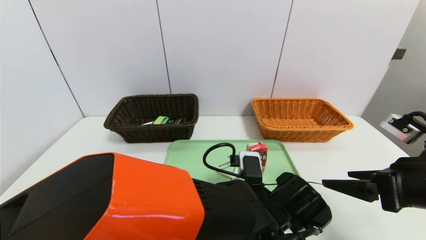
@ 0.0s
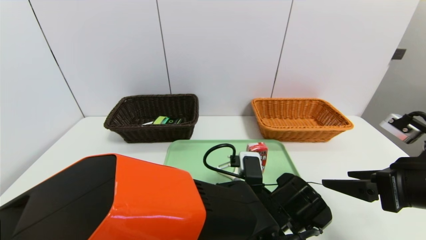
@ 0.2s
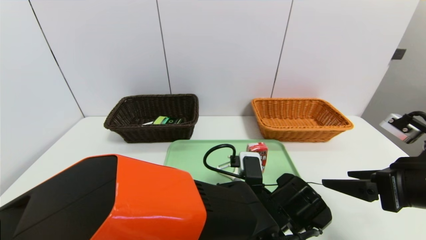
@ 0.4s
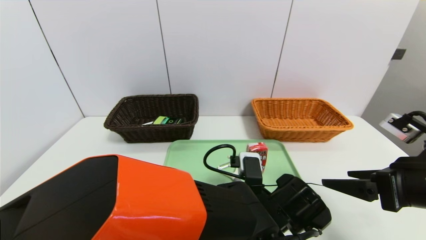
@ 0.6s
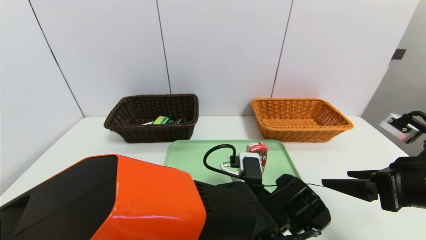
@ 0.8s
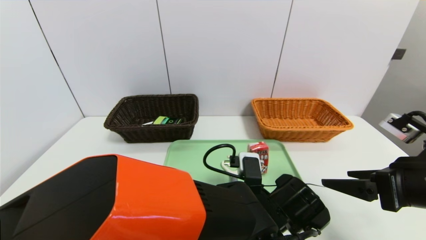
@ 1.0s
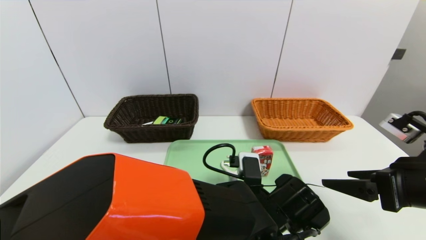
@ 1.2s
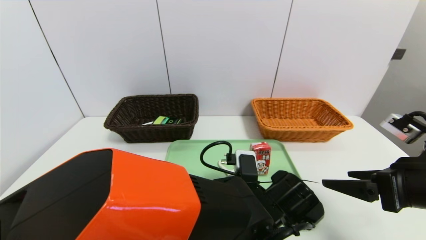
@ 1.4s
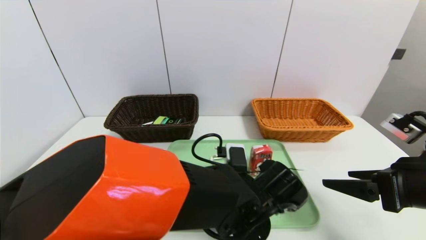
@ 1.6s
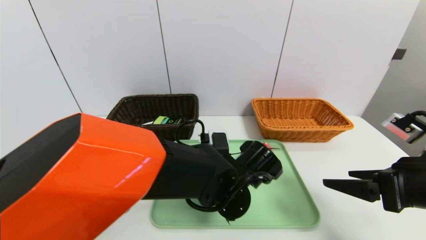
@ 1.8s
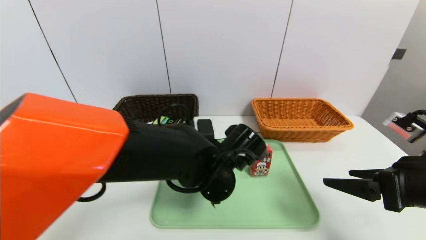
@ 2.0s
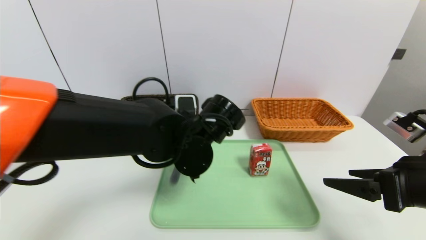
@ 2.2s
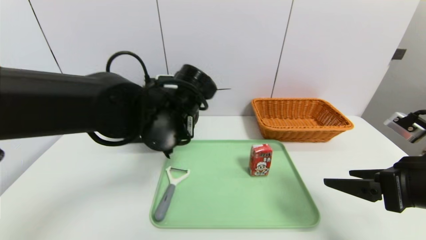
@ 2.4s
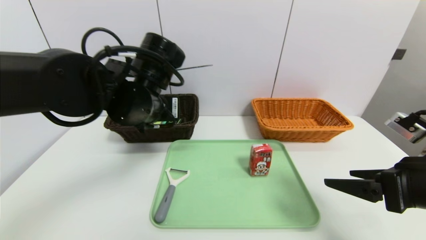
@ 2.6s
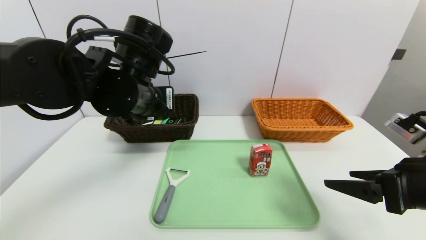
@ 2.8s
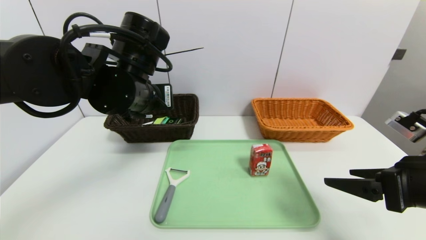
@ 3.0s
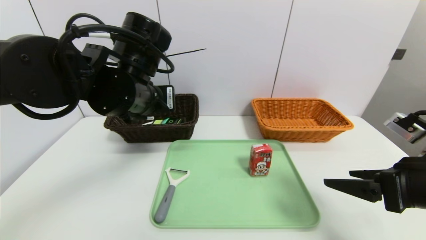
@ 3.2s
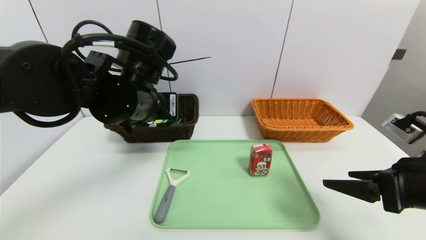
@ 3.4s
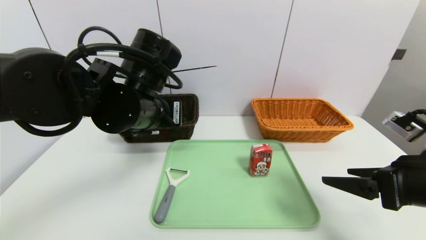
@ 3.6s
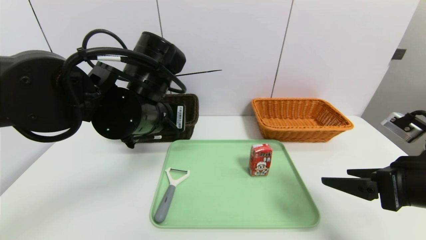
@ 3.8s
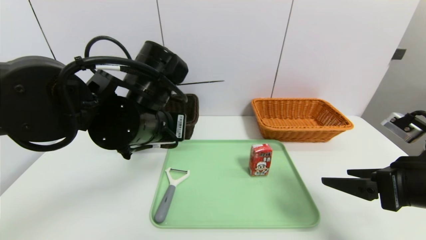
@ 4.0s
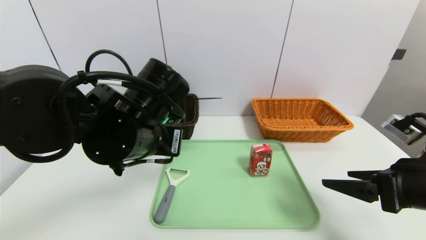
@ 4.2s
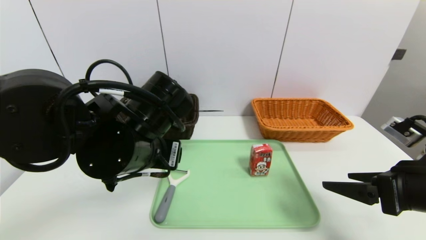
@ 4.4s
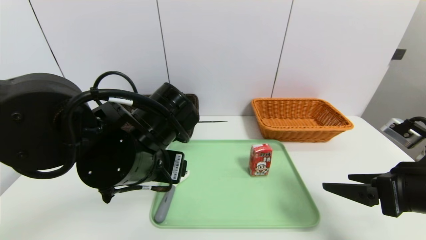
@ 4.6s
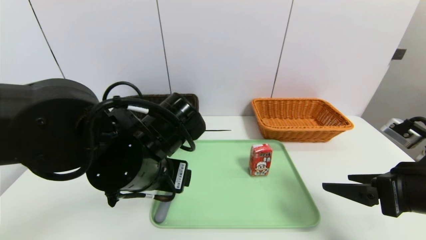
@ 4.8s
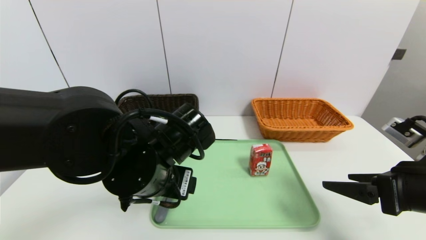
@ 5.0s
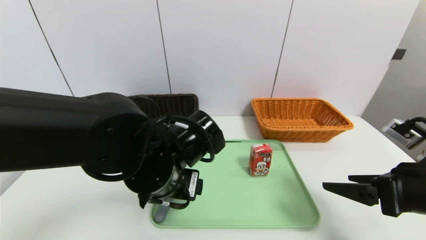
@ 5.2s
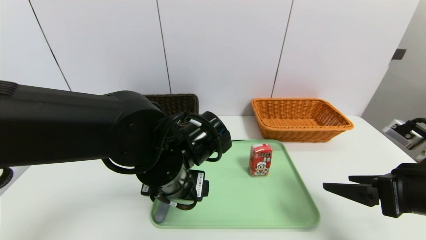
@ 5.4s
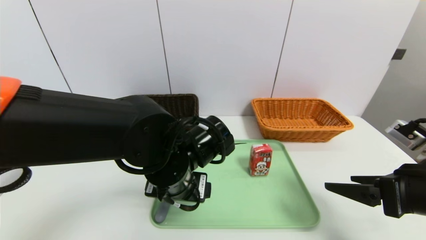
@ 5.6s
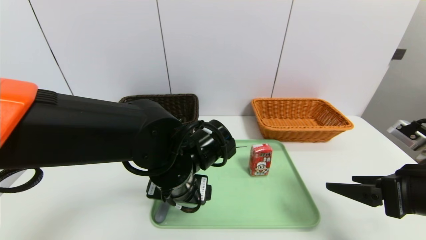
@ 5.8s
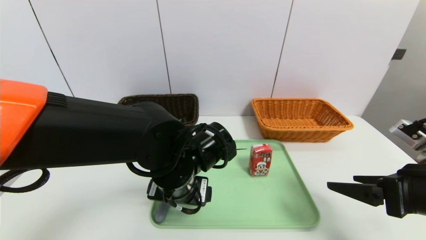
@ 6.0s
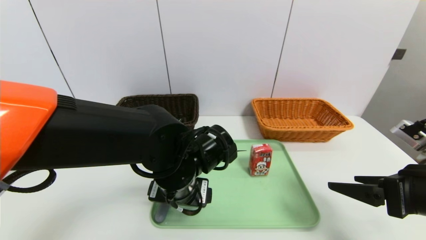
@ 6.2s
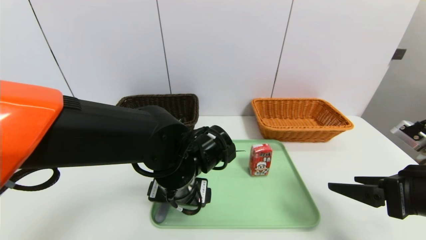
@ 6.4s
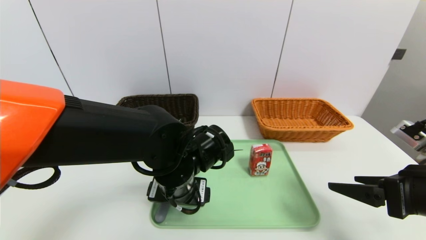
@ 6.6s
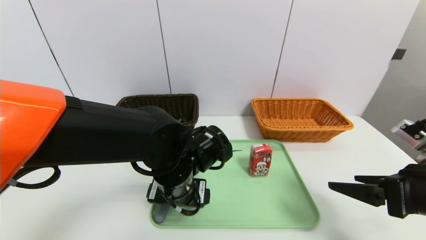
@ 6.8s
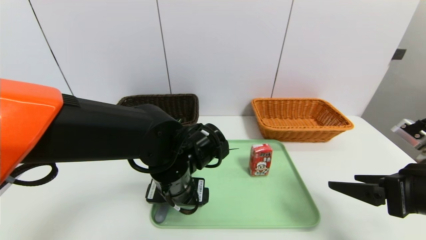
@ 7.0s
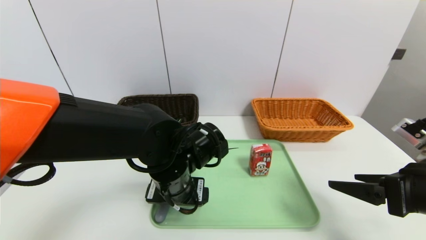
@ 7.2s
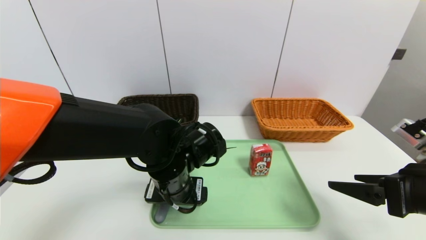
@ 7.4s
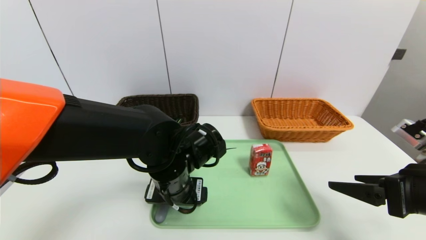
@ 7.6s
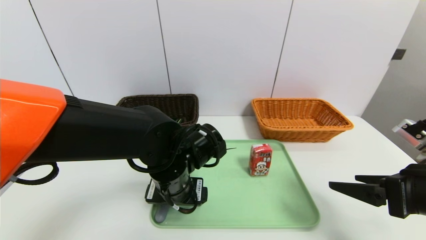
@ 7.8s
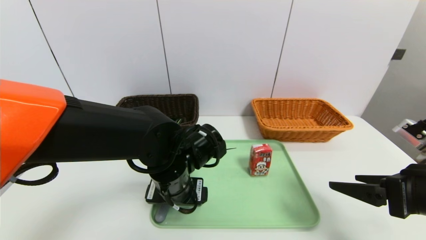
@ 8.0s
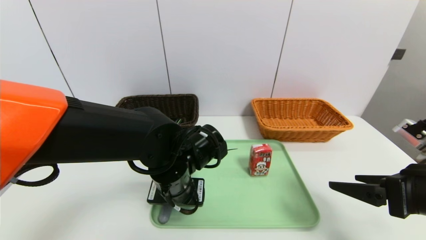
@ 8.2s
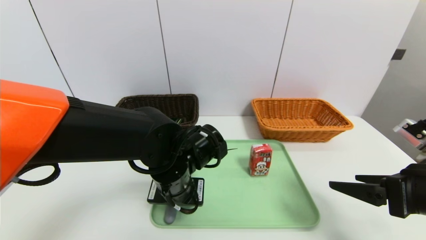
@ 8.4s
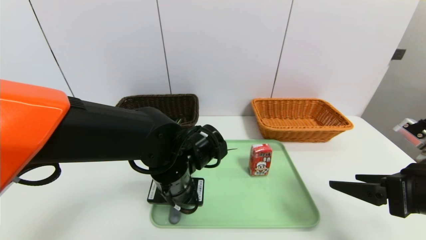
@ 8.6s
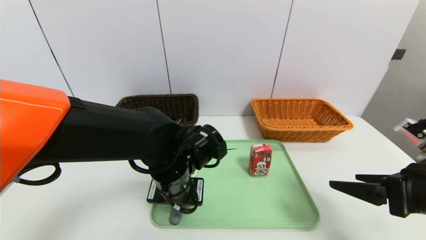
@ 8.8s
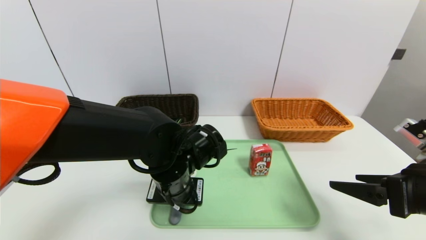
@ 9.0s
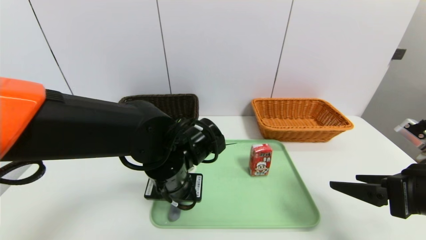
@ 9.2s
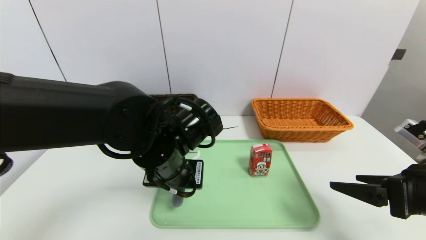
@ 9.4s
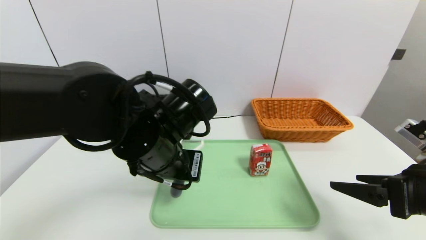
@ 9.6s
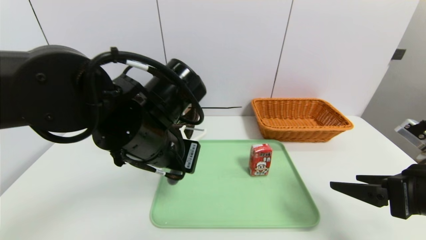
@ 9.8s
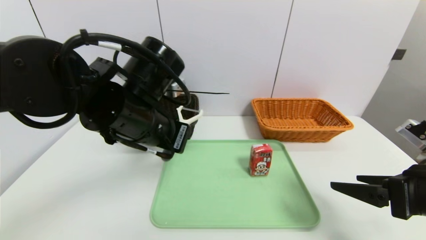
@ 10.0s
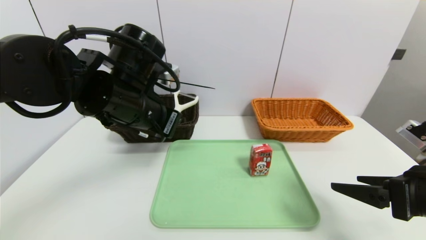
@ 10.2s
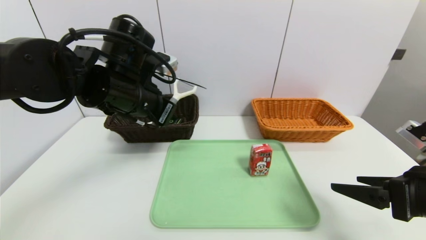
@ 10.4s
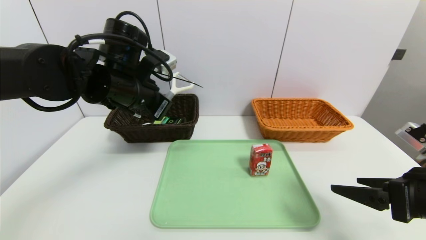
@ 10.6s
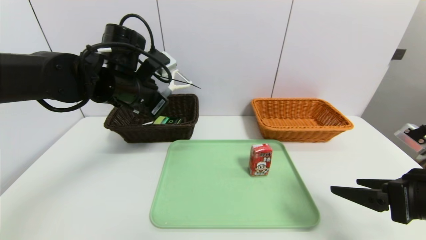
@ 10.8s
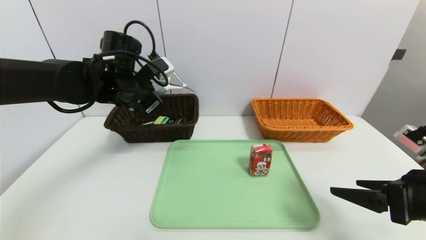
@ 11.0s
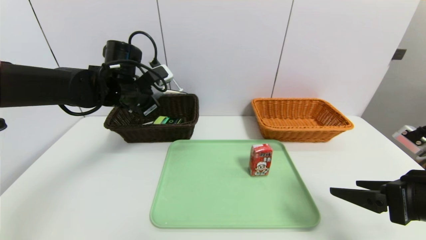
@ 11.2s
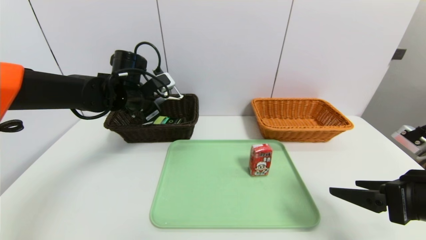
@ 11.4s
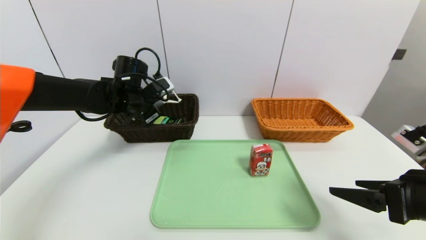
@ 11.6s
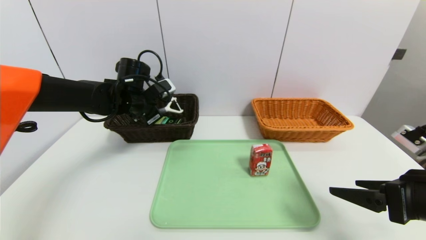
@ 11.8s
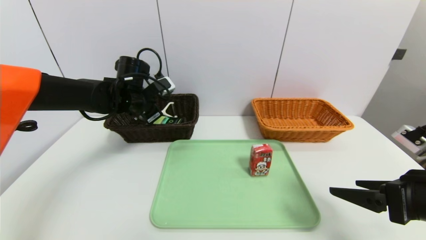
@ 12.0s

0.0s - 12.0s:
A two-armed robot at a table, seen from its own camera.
Task of the whole recording: place the food in the right basket with the right gripper, and place the non food items in the left basket with the left gripper.
0.0s - 1.6s: The left gripper closes.
1.6s - 3.0s: The left gripper goes approximately 25 cm upward and to the left.
3.0s - 4.4s: The left gripper shifts some 10 cm backward and downward, and opens.
4.4s - 6.0s: The left gripper moves downward and to the right, roughly 10 cm.
6.0s - 7.6s: The grippers stay close to where they were, moving slightly.
7.6s - 9.0s: The left gripper closes.
9.0s - 10.4s: The left gripper travels upward and to the left by roughly 15 cm.
10.4s - 12.0s: The left gripper goes some 15 cm forward, downward and to the left, and opens its fingers.

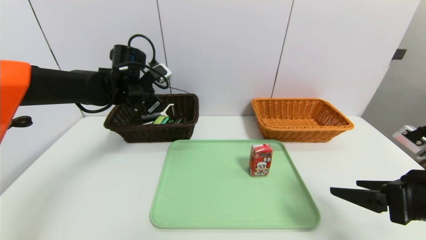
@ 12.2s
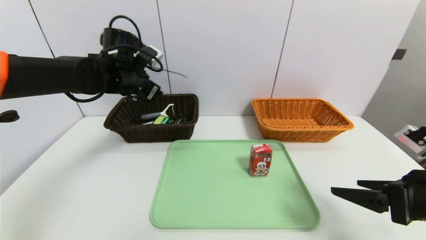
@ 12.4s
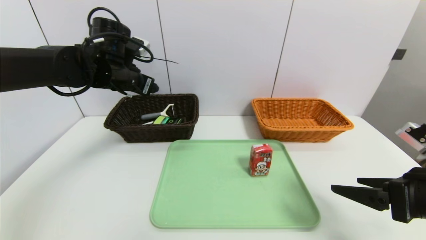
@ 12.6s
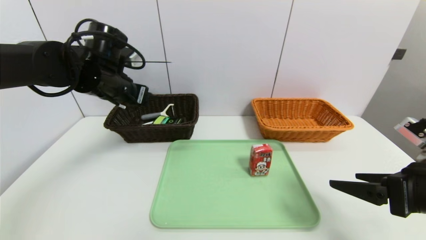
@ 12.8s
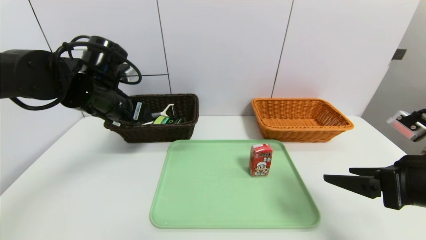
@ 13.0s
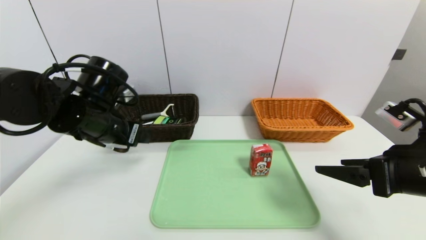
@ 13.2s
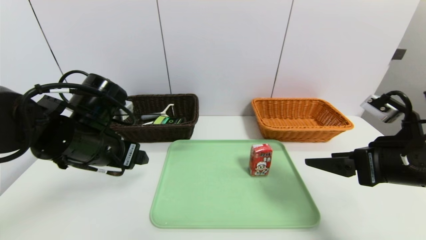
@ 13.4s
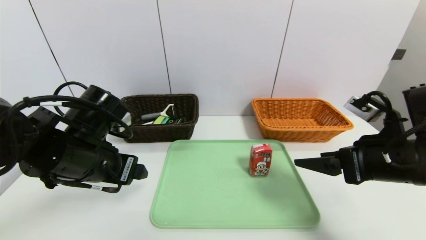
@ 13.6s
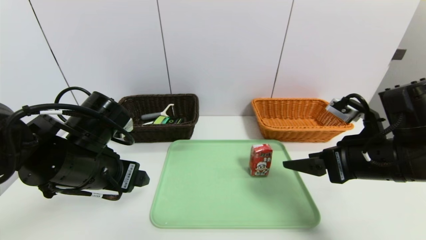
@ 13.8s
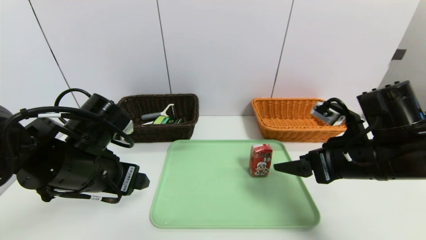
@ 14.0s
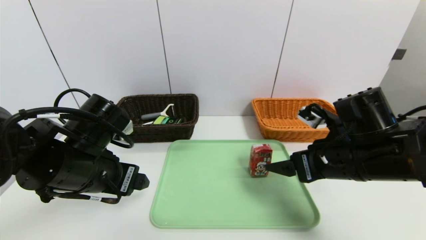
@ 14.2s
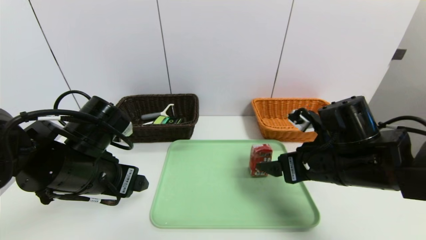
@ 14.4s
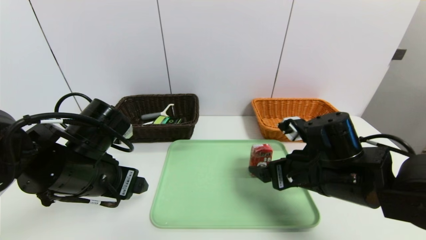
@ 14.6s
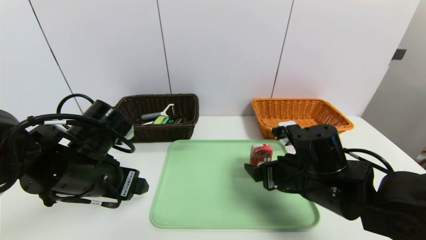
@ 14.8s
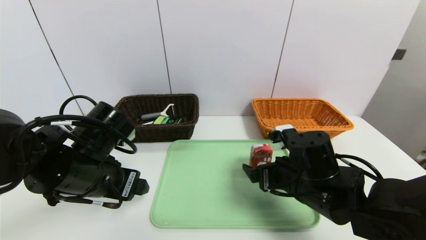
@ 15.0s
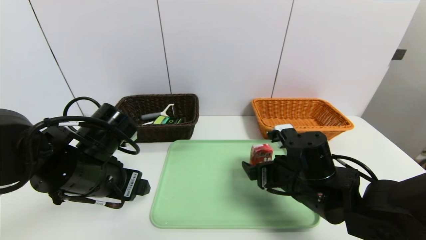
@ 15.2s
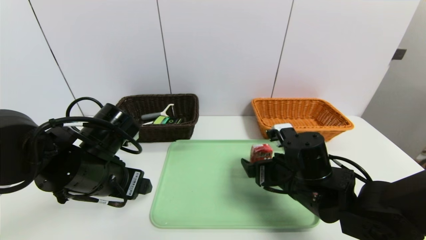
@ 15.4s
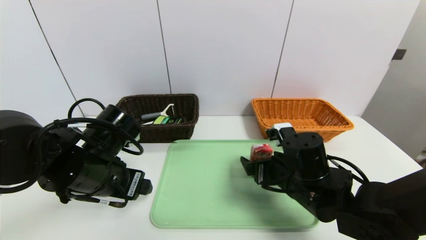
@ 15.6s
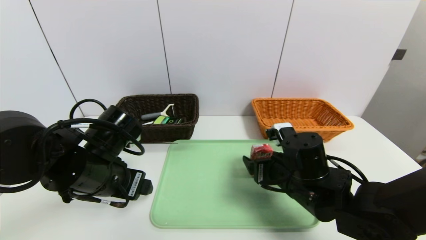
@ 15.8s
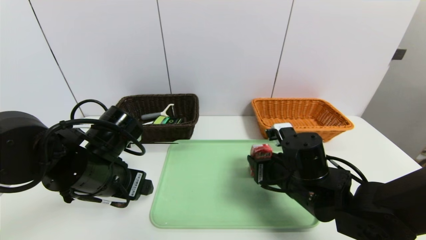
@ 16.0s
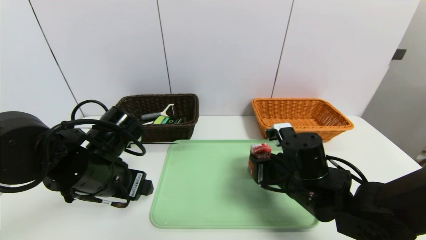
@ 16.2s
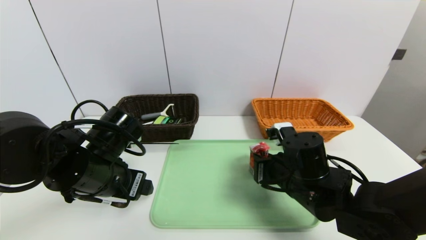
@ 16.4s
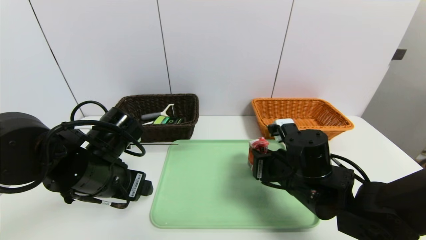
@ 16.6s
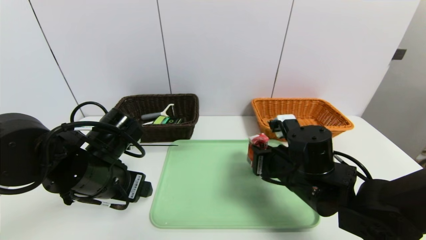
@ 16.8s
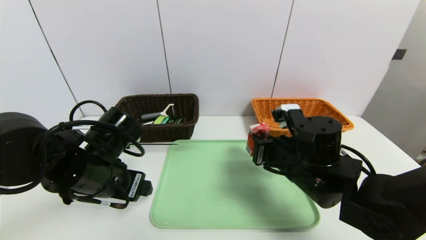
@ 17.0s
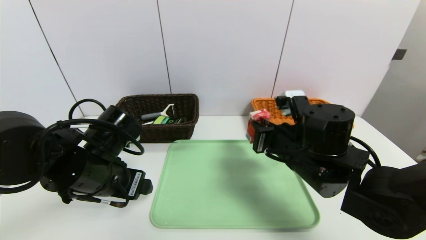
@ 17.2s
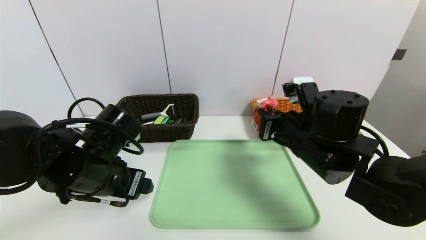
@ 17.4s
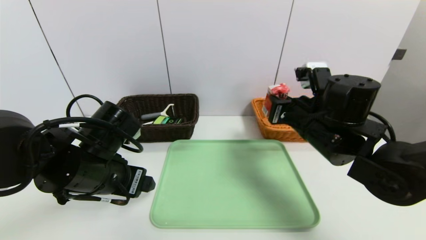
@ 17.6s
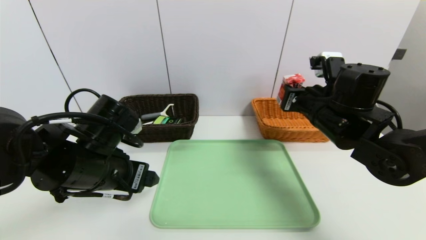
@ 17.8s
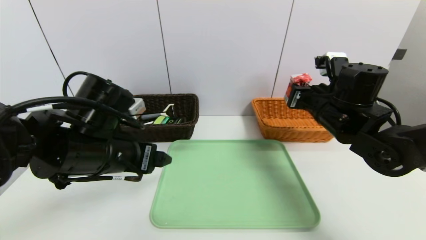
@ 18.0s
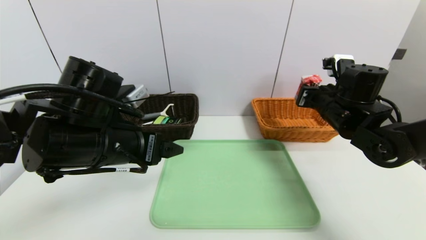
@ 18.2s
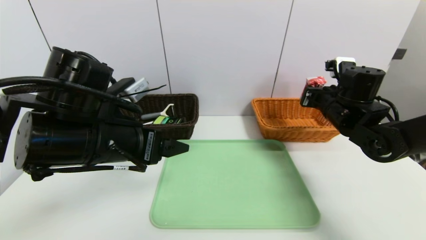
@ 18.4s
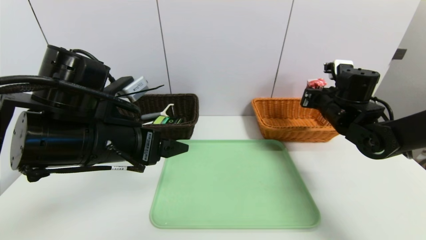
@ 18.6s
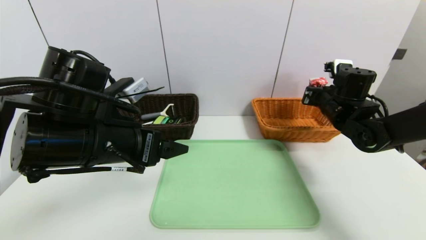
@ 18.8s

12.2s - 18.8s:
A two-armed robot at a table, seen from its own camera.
Task of the whole recording: place the food in the right basket with the right gripper, and place the non food items in the left basket with the left gripper.
12.2s - 13.8s: The right gripper heads forward and to the left, covering approximately 10 cm. Meanwhile the left gripper shifts roughly 20 cm backward.
13.8s - 15.4s: The right gripper shifts about 15 cm to the left and downward.
15.4s - 17.2s: The right gripper heads upward, covering some 5 cm, and closes its fingers.
17.2s - 18.8s: The right gripper heads forward and to the right, covering about 20 cm; the left gripper travels upward by roughly 5 cm.
